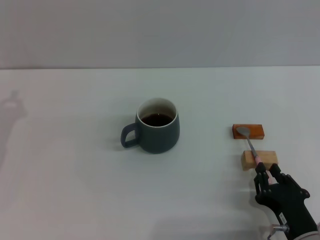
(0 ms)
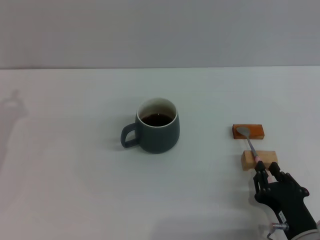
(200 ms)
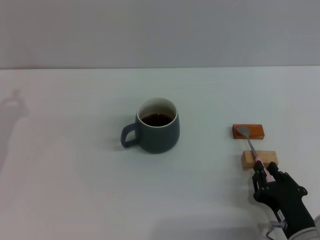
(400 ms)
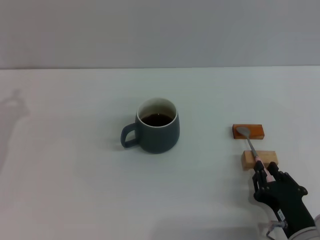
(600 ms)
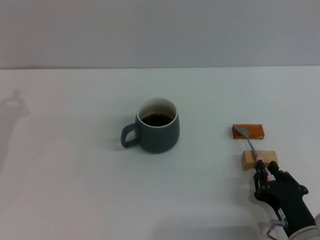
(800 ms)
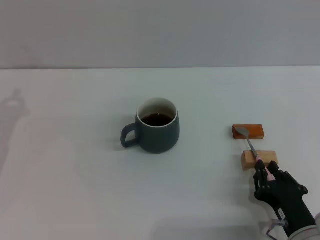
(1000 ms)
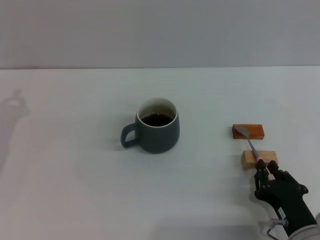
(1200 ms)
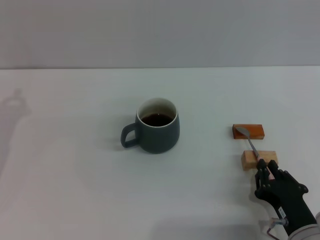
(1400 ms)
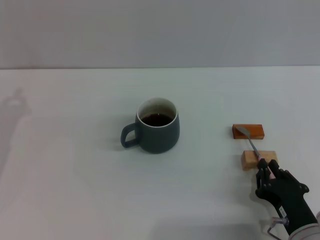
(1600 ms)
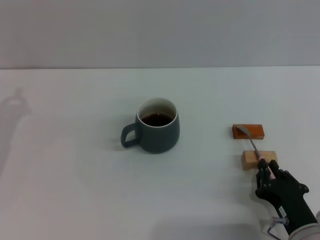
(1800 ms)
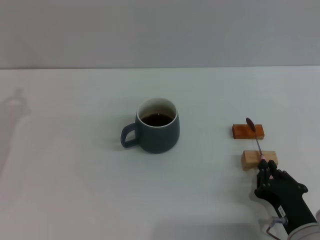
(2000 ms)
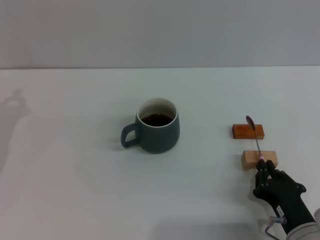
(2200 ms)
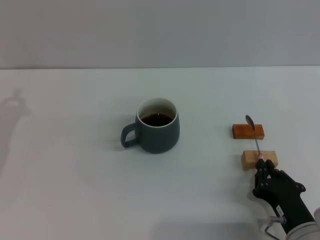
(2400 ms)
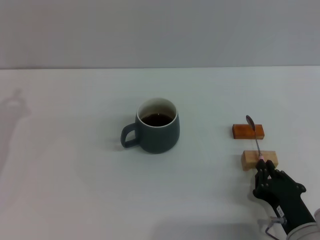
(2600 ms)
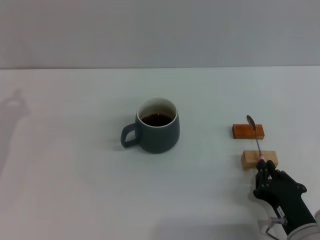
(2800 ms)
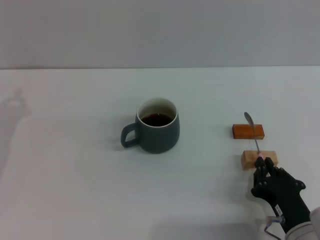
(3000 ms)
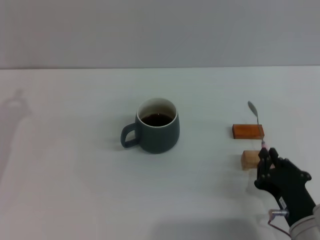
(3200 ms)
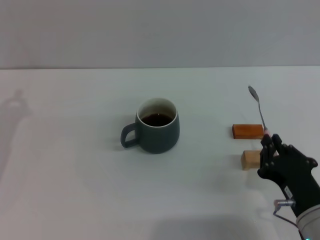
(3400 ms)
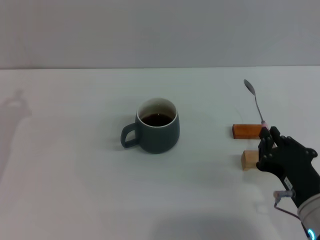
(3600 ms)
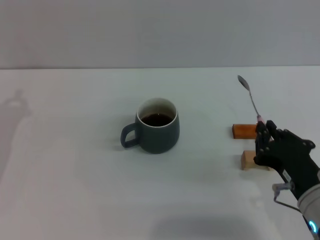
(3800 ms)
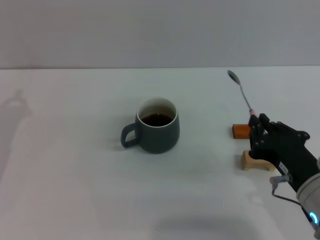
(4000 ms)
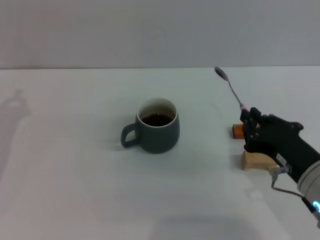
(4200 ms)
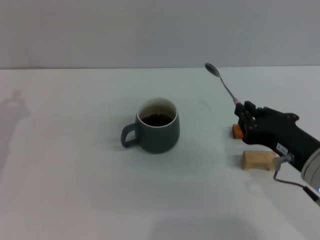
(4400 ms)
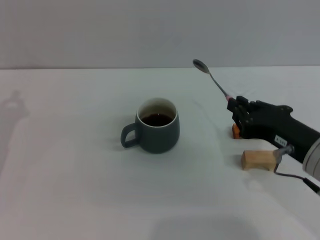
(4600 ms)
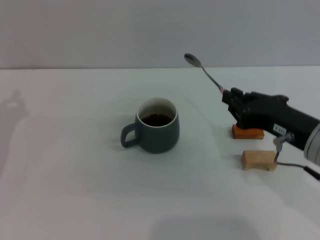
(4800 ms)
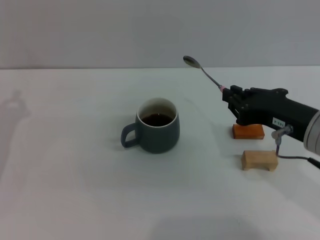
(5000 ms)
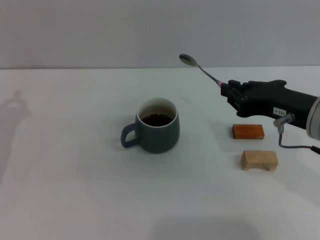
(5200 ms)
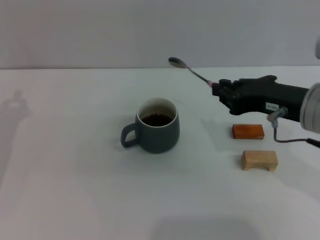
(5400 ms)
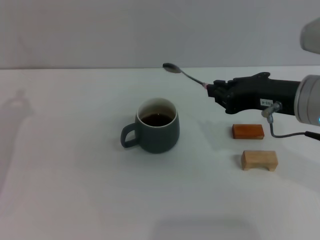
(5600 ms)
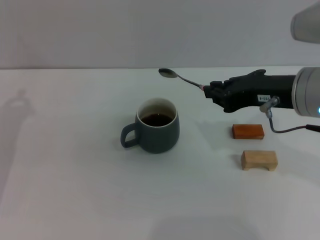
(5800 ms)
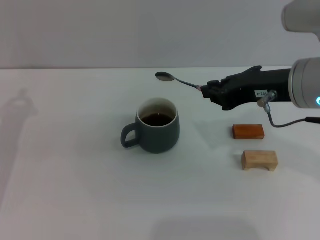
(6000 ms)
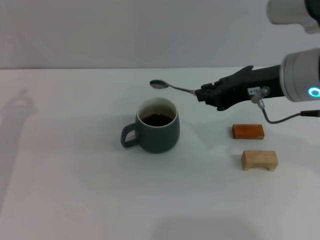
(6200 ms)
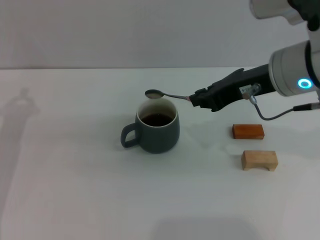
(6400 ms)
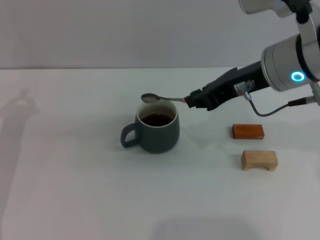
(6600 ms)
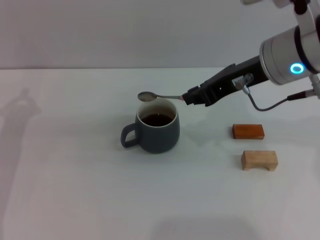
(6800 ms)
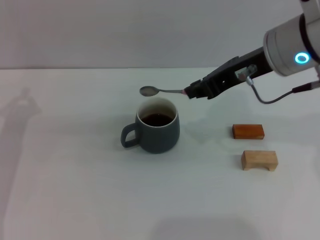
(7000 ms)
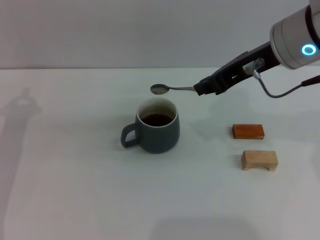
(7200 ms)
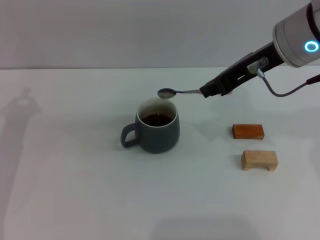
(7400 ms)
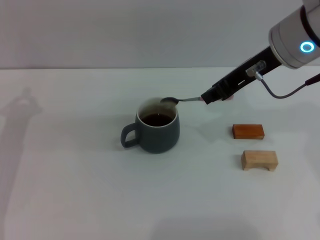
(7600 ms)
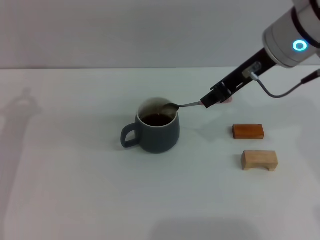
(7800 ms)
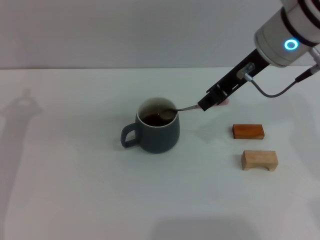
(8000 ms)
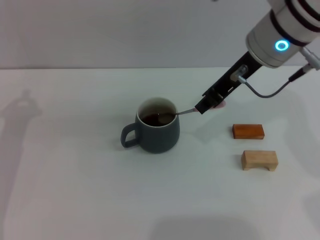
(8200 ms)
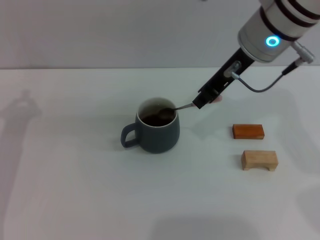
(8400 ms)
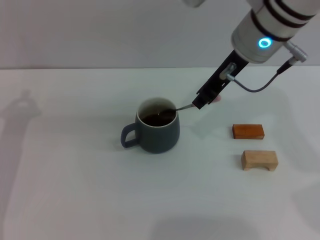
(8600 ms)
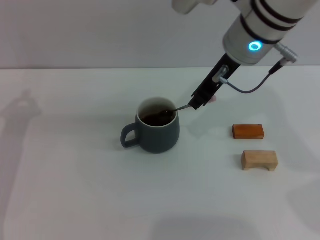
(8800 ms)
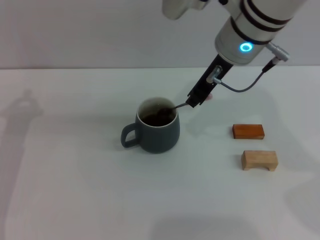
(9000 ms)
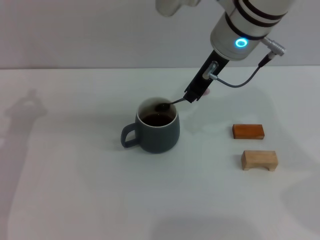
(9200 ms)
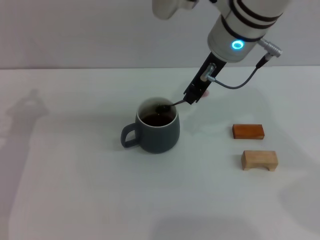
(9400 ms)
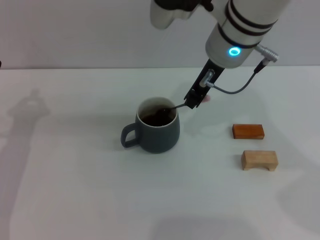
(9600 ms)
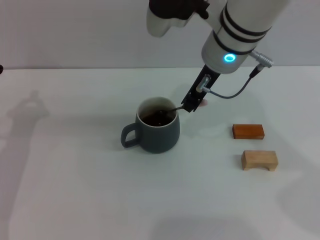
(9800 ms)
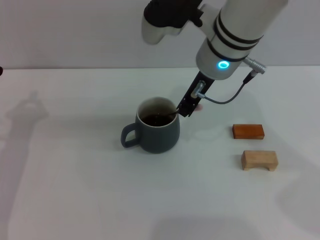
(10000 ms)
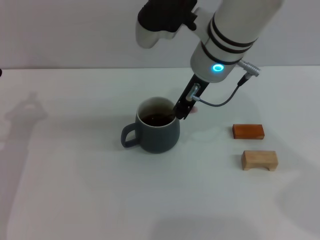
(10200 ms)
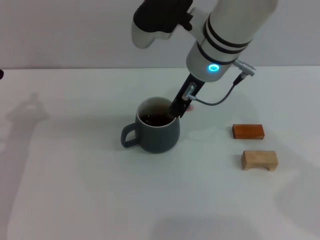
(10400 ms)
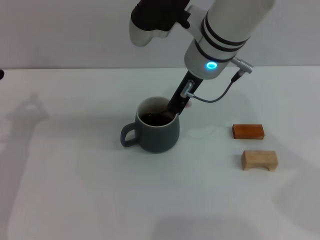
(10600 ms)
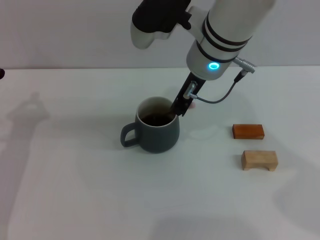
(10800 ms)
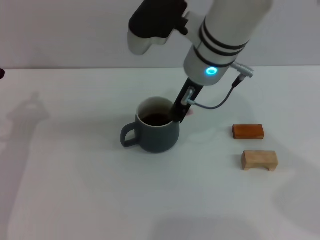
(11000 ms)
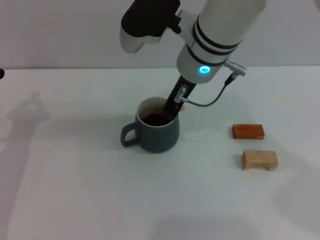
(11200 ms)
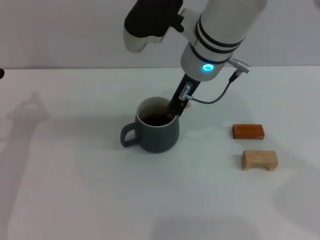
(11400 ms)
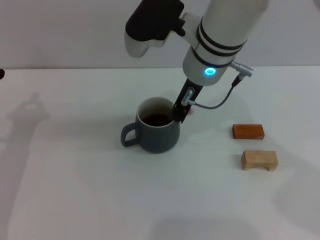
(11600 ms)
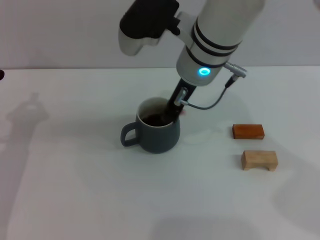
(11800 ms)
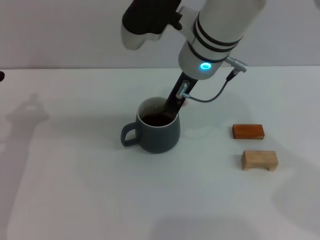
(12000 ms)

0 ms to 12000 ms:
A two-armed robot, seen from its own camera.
Task of the whole recording: Move the grey cup to the center, lift the pink spoon, stir it three times in the cup, and put the spoon into the cup.
Step, 0 ms to 3800 ms: Pick up the spoon with the right gripper.
0 ms to 3000 ms: Both grippers stay put.
3000 ms to 4400 ms: The right gripper is displaced upward by roughly 15 cm.
4400 ms to 6000 ms: The right gripper heads upward and forward, covering approximately 15 cm.
6000 ms to 7600 ms: The right gripper shifts roughly 5 cm forward.
7600 ms to 9000 ms: The right gripper shifts approximately 5 cm to the left.
9000 ms to 12000 ms: The grippers make only small movements.

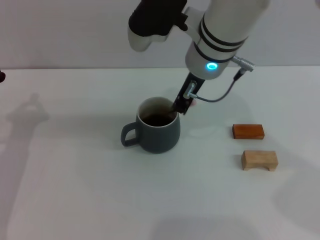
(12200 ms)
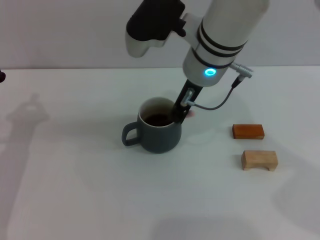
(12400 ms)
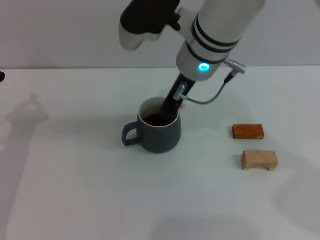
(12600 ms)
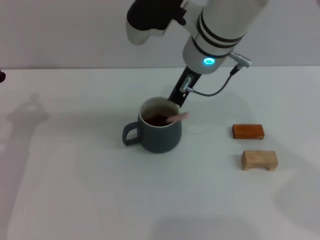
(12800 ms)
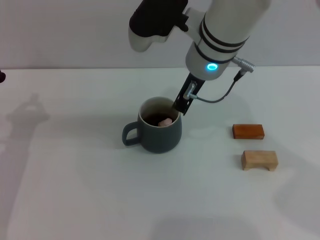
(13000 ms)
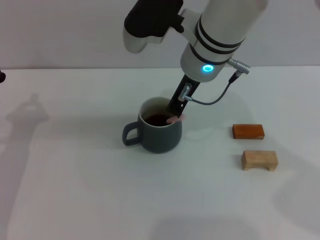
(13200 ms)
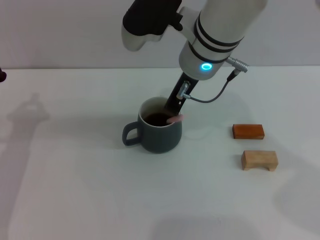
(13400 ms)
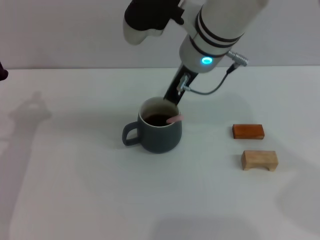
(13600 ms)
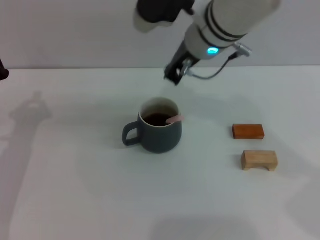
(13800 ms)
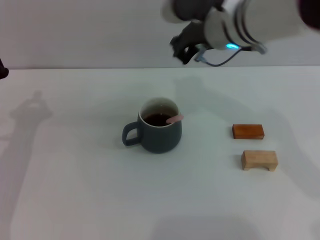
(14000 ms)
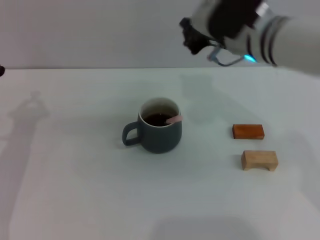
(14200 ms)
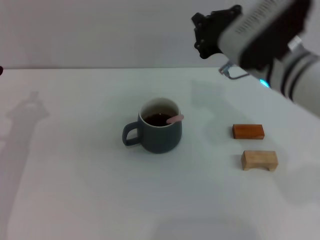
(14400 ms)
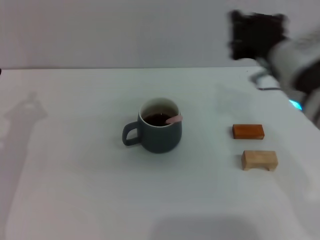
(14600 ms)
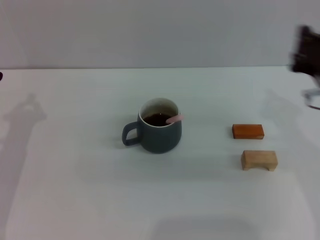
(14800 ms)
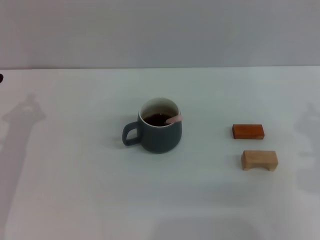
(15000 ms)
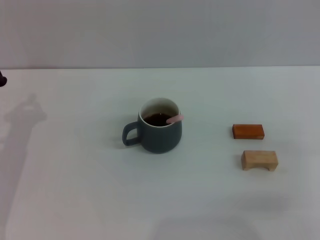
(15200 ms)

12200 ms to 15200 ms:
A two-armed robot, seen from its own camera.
Task of the whole recording: Move the grey cup to the center, lift the pink spoon, stir it three times in the cup, and put the spoon into the cup.
12200 ms to 13800 ms: The grippers move only a little.
13800 ms to 15200 ms: The right gripper moves to the right, backward and downward, roughly 35 cm.
